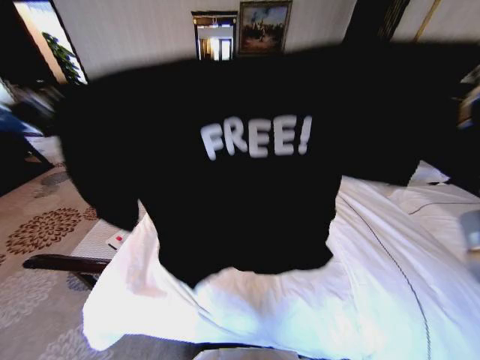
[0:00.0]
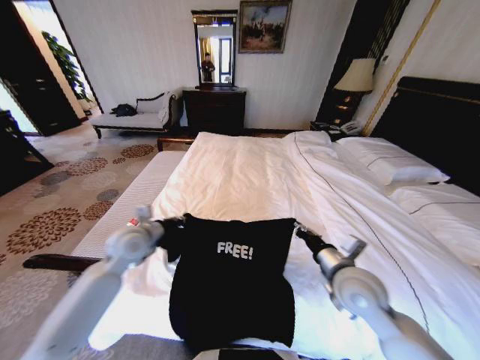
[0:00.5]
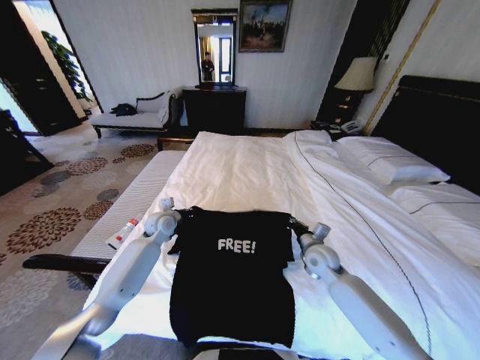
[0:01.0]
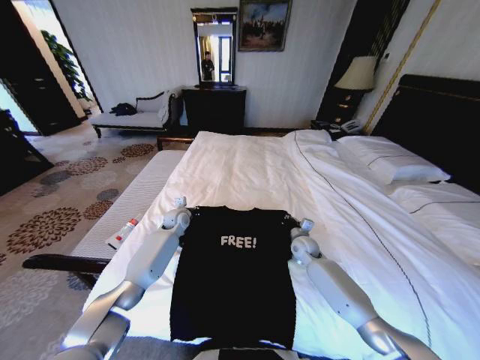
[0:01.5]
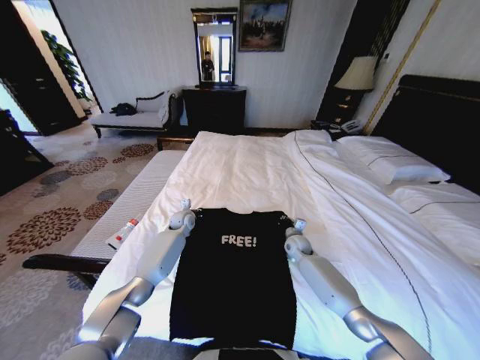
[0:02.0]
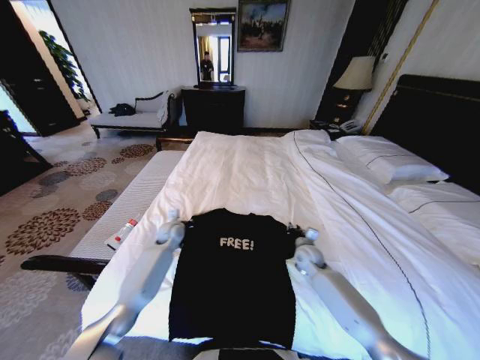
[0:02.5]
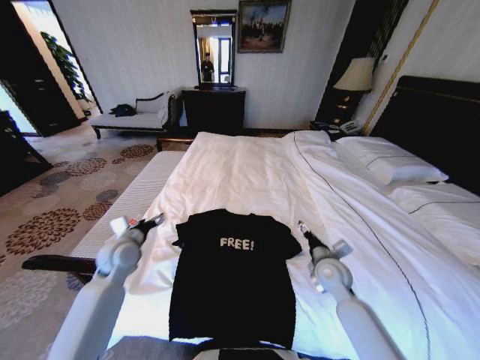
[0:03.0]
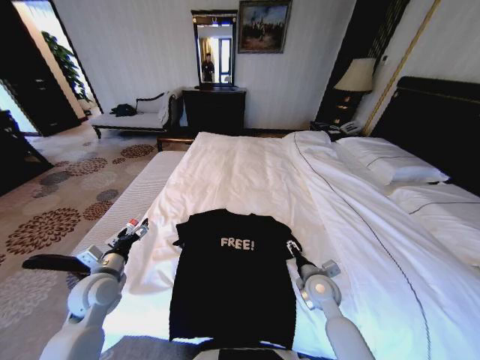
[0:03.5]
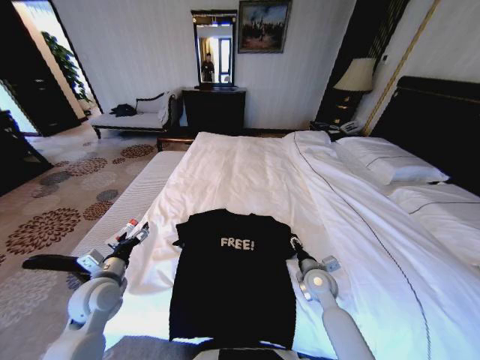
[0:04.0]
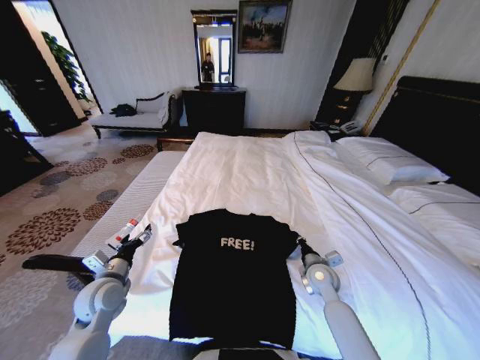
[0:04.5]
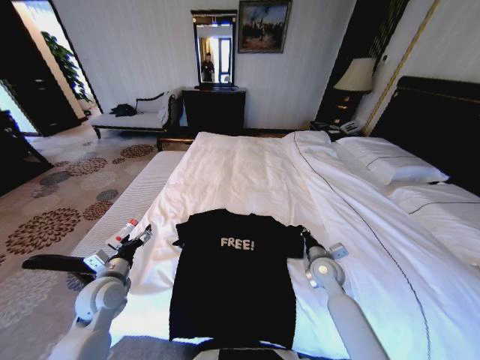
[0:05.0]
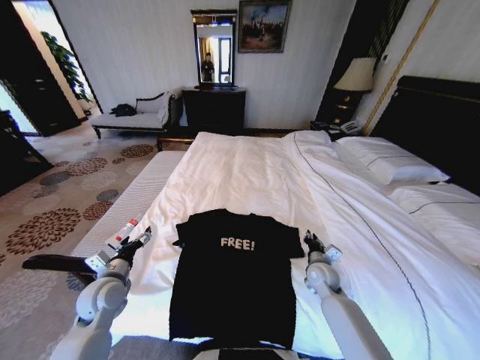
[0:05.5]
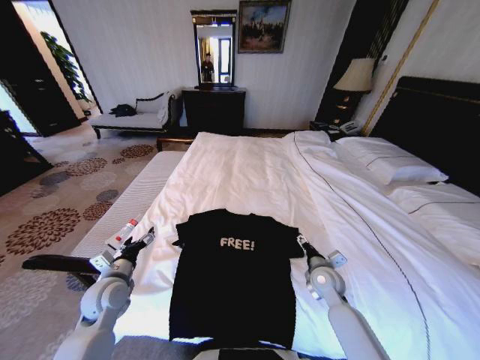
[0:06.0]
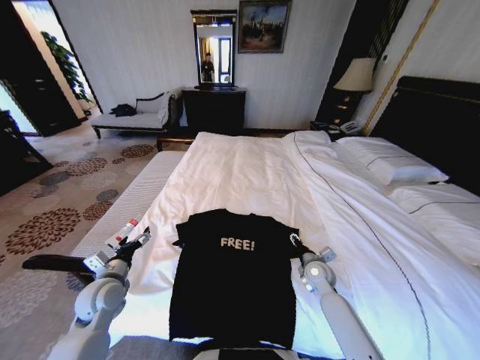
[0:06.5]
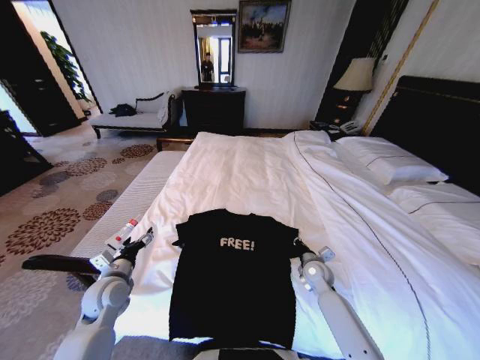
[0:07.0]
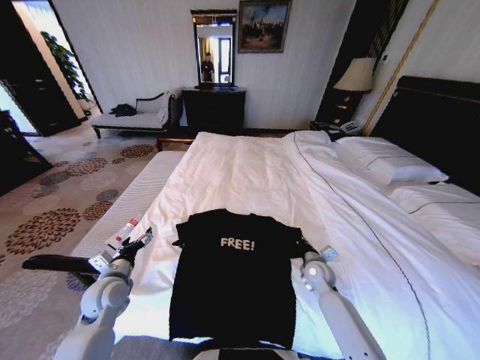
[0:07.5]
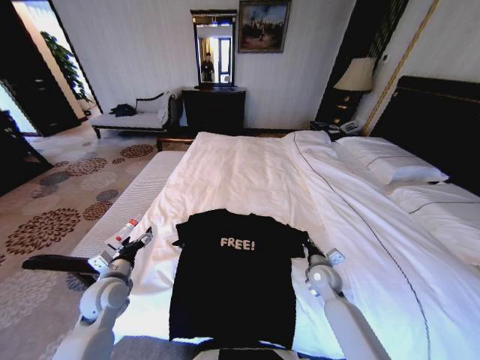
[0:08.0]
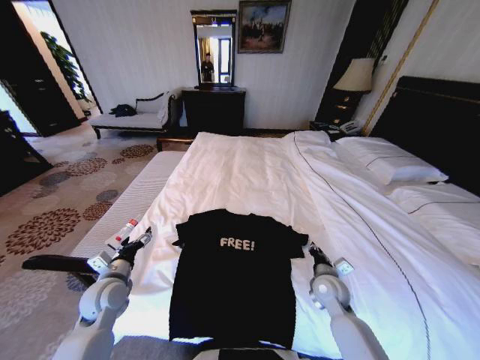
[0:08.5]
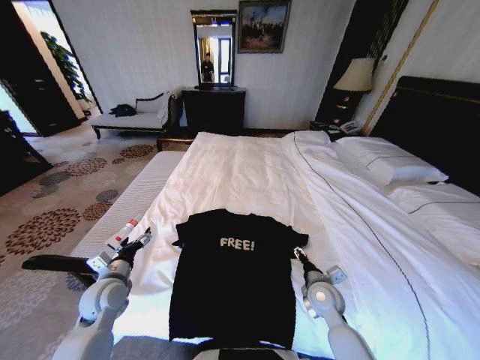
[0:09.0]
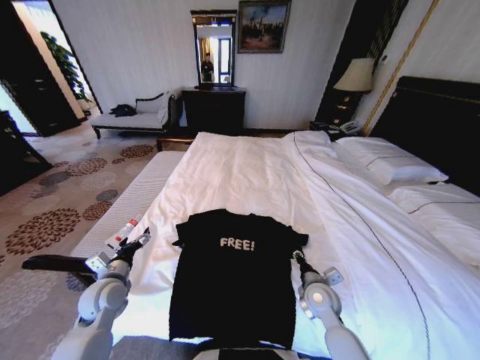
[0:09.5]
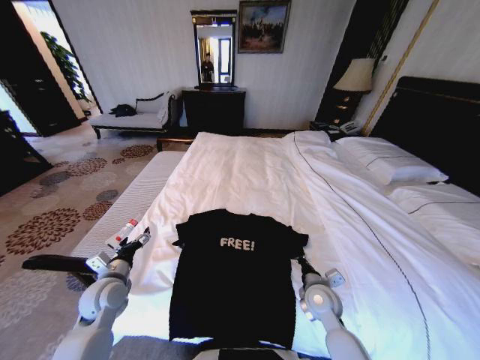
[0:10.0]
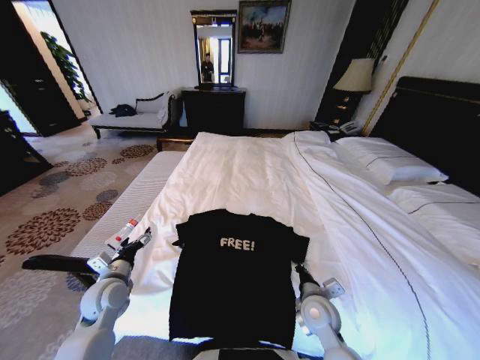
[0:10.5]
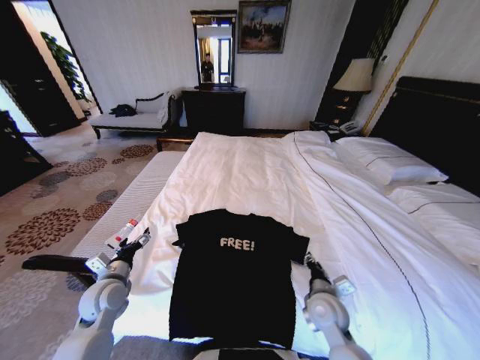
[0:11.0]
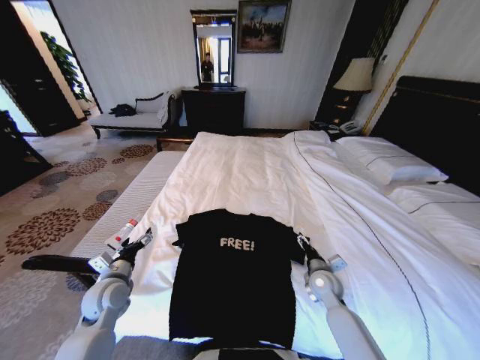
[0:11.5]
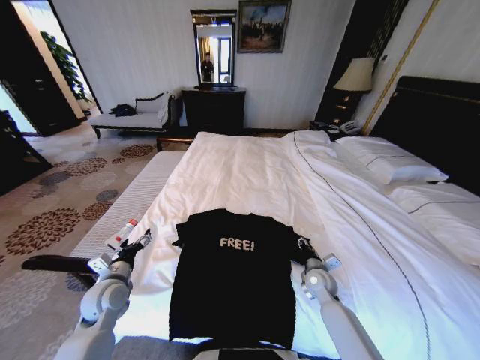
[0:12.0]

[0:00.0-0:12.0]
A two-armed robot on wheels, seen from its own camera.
Task of the whole recording: Fold the clothes on the bed.
0:00.0 to 0:02.0: The left gripper shifts approximately 60 cm downward, forward and to the right, while the right gripper travels downward and forward by about 50 cm.
0:02.0 to 0:04.0: The left gripper goes roughly 35 cm backward and to the left, and opens. The right gripper is displaced backward by about 15 cm, and opens its fingers.
0:04.0 to 0:06.0: The right gripper closes, then opens again.
0:06.0 to 0:08.0: The right gripper closes.
0:08.0 to 0:10.0: The right gripper goes about 10 cm backward and to the left, and opens, then closes once more.
0:10.0 to 0:12.0: The right gripper shifts approximately 5 cm forward, and opens up.

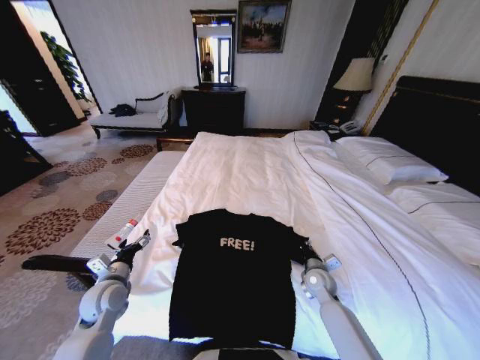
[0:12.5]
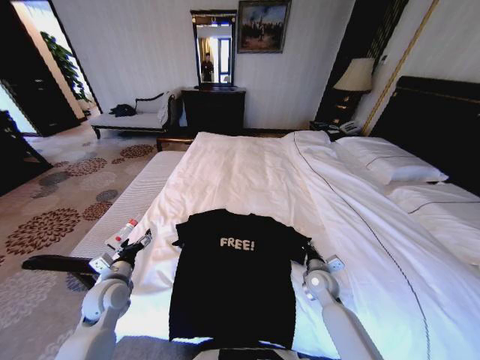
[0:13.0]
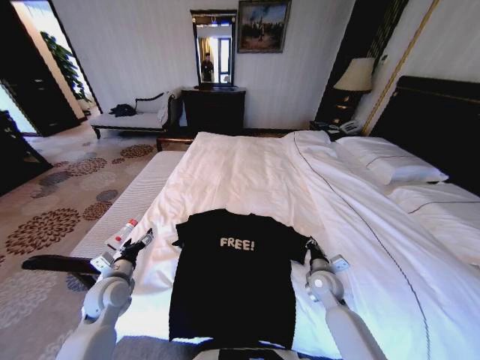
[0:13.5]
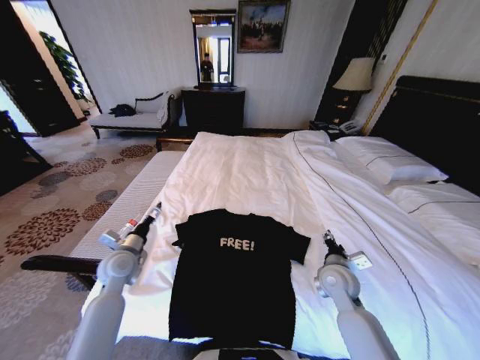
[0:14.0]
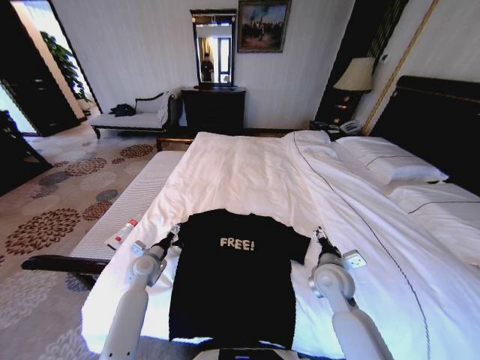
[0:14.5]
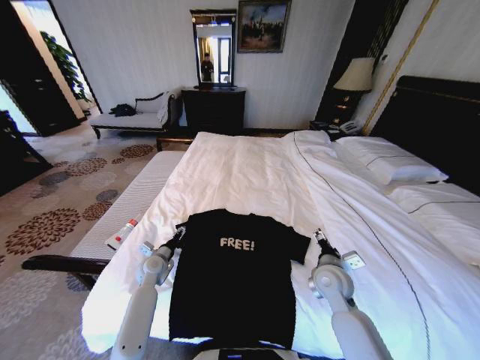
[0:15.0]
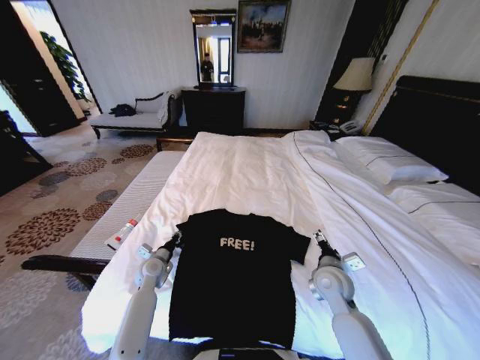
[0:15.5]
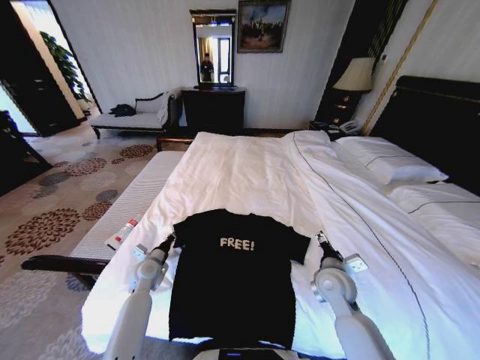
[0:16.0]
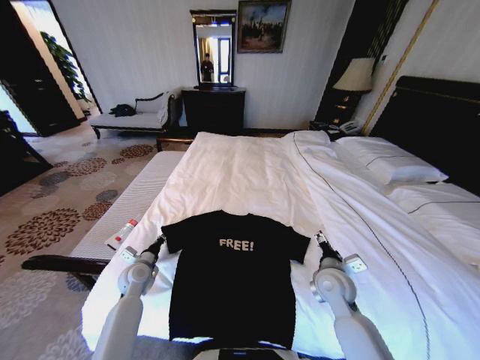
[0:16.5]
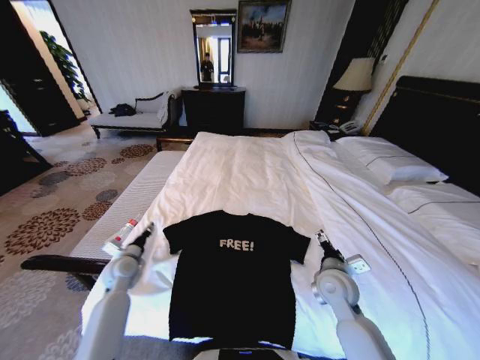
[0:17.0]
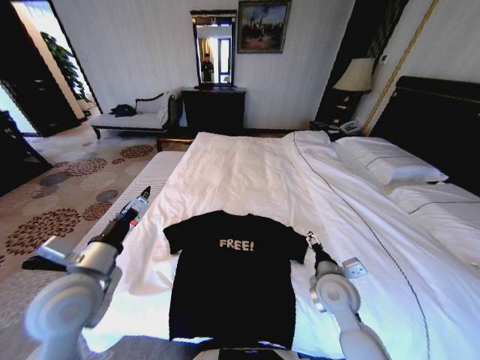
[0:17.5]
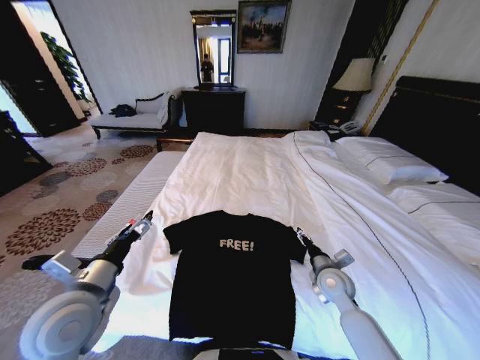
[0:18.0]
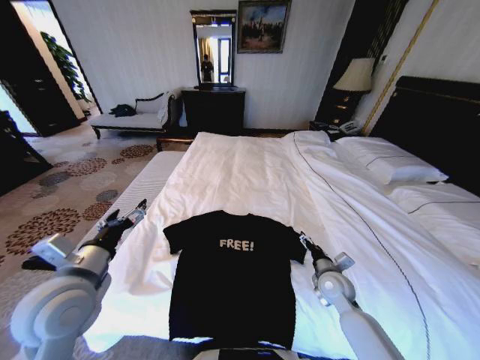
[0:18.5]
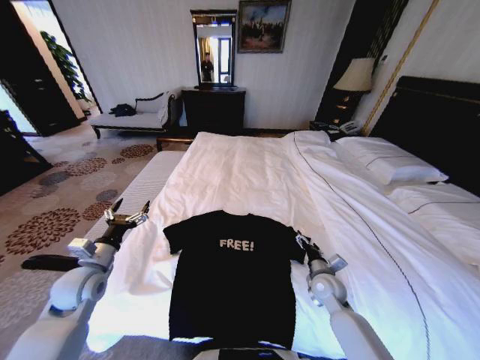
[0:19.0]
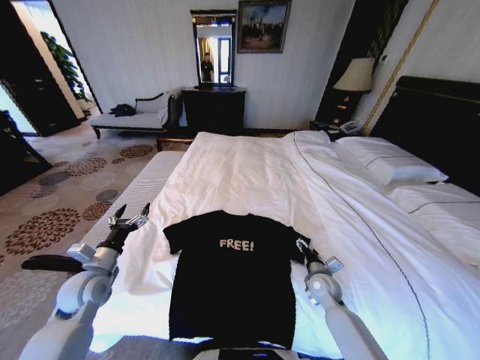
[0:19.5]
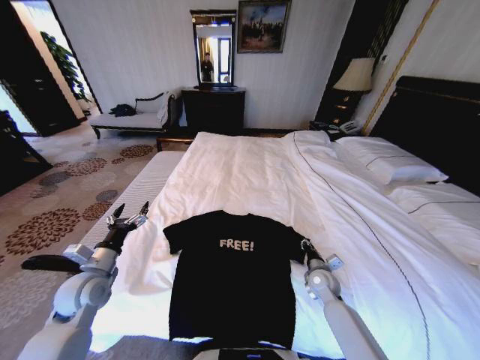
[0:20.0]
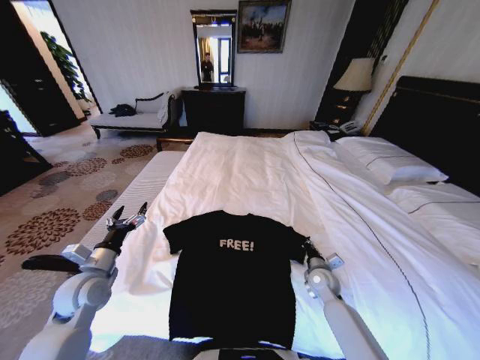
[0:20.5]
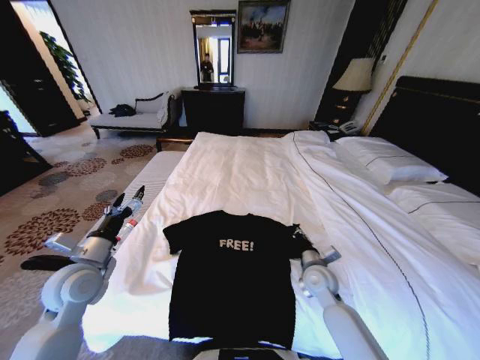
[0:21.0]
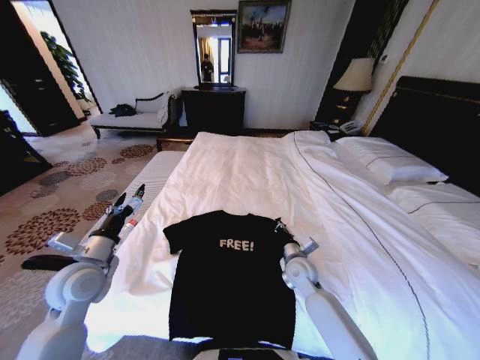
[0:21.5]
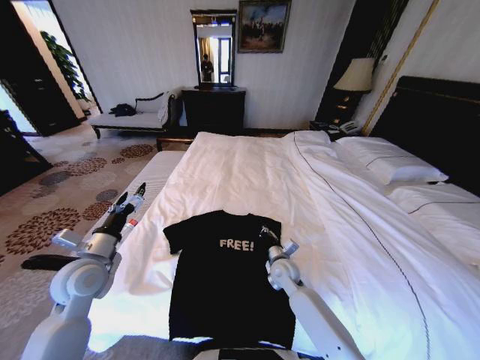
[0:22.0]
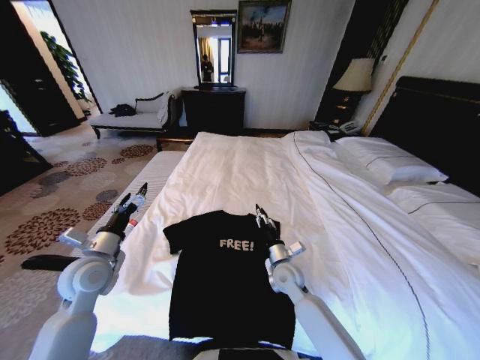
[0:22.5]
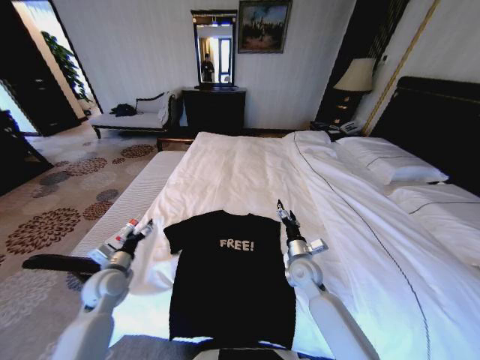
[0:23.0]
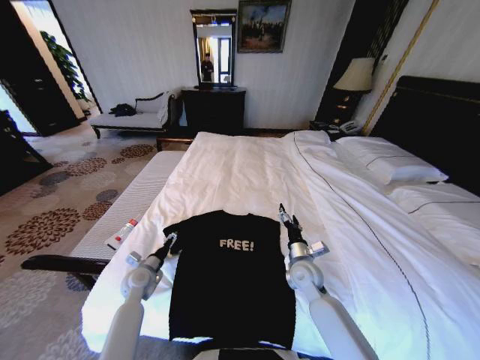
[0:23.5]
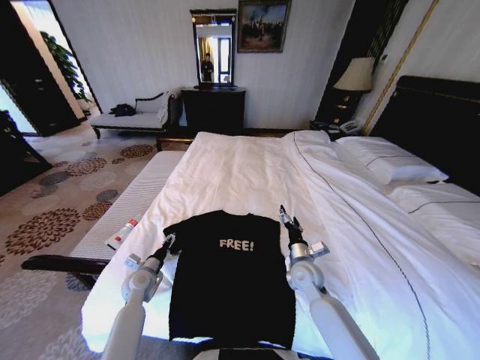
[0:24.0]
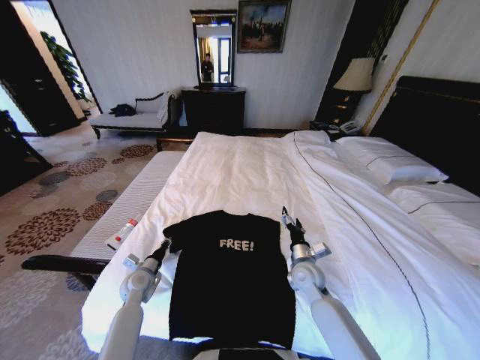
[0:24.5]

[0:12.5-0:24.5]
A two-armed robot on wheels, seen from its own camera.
Task of the whole recording: Fold the clothes on the bed.
0:12.5 to 0:14.5: The left gripper travels forward and downward by about 10 cm, while the right gripper travels upward by some 10 cm, and opens its fingers.
0:14.5 to 0:16.5: The left gripper closes up.
0:16.5 to 0:18.5: The left gripper is displaced upward and backward by some 25 cm, and opens up, while the right gripper shifts roughly 5 cm downward.
0:18.5 to 0:20.5: The left gripper shifts approximately 15 cm downward, to the left and forward. The right gripper moves downward, about 5 cm, and closes up.
0:20.5 to 0:22.5: The right gripper moves to the left, about 15 cm, and opens up. Meanwhile the left gripper moves roughly 5 cm.
0:22.5 to 0:24.5: The left gripper heads downward, covering some 20 cm, and closes its fingers; the right gripper heads to the right, covering approximately 5 cm, and opens up.

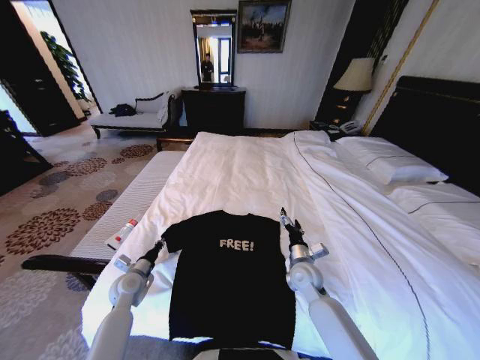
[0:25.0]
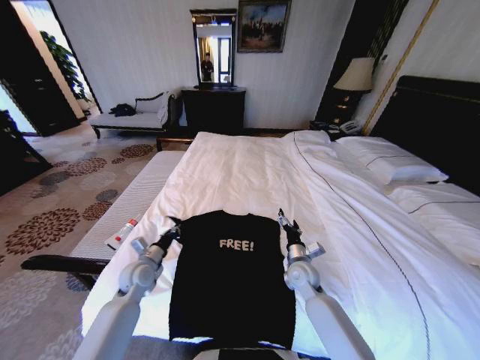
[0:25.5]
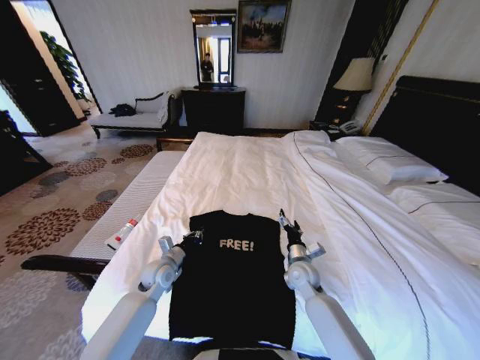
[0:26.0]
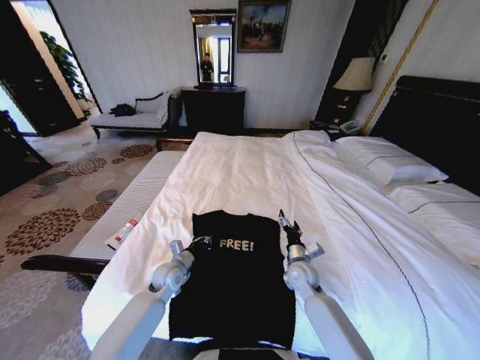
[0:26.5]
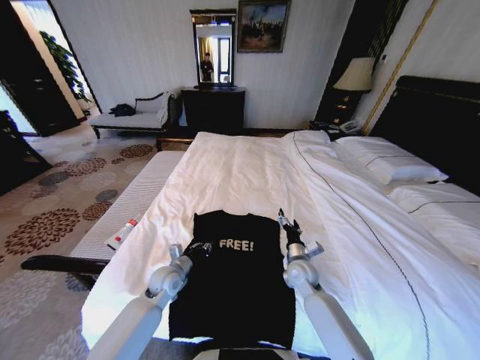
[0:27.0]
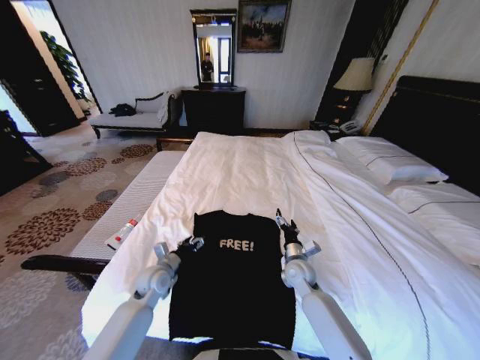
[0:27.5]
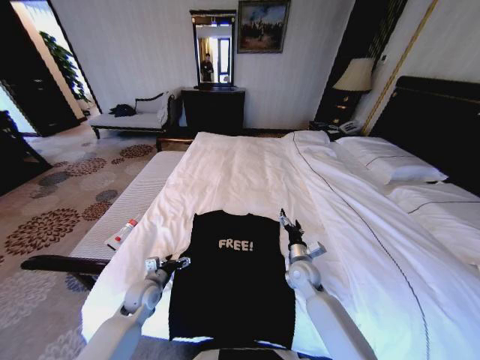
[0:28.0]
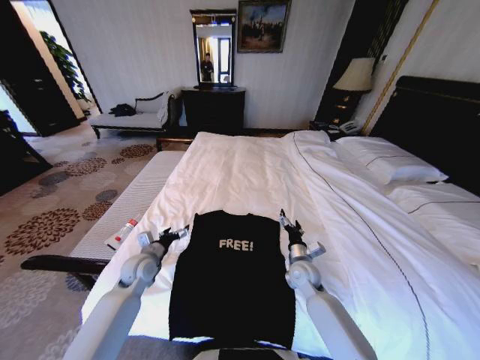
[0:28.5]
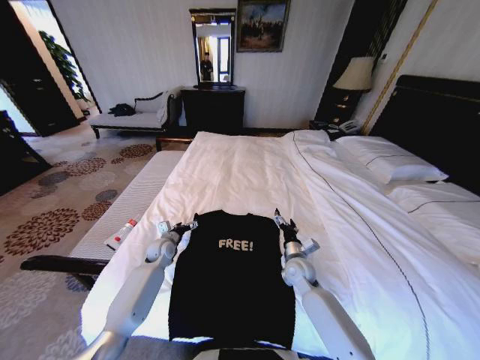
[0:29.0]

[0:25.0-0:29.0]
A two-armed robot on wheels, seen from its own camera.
Task of the whole recording: Fold the clothes on the bed.
0:25.0 to 0:27.0: The left gripper goes about 10 cm to the right.
0:27.0 to 0:29.0: The left gripper heads forward and to the left, covering about 15 cm, and opens up.
